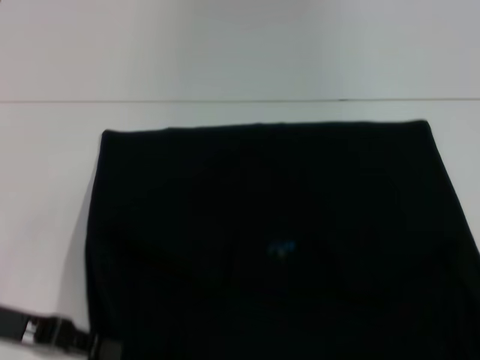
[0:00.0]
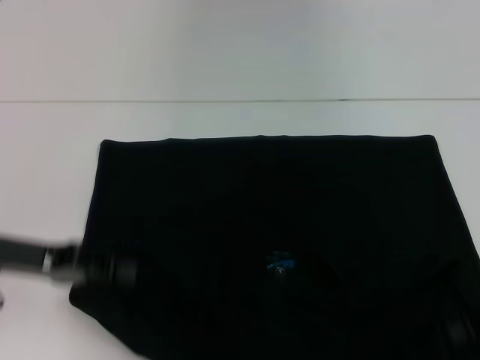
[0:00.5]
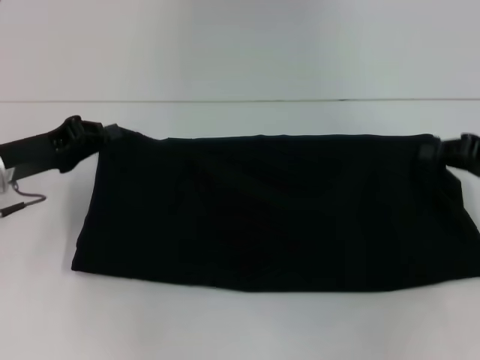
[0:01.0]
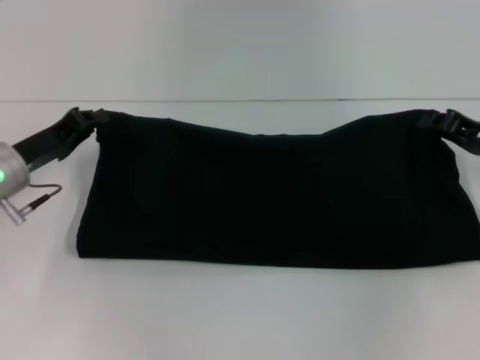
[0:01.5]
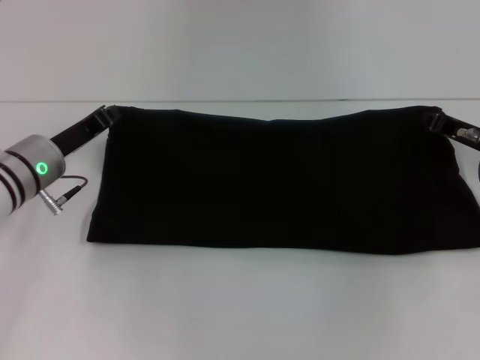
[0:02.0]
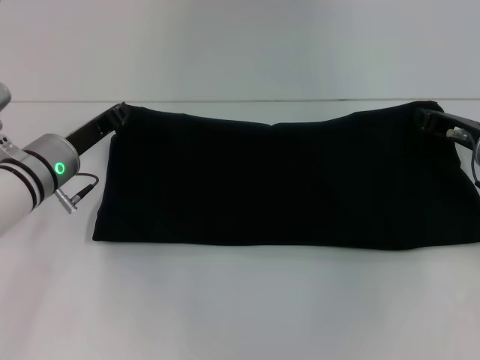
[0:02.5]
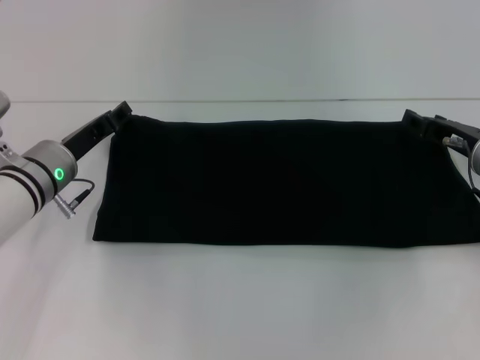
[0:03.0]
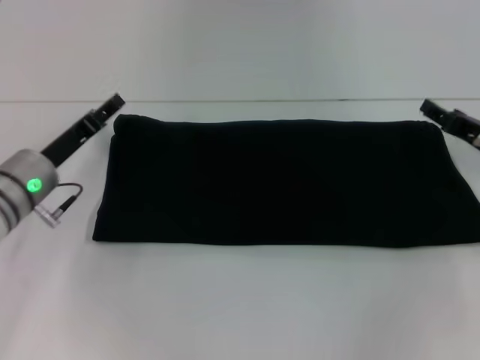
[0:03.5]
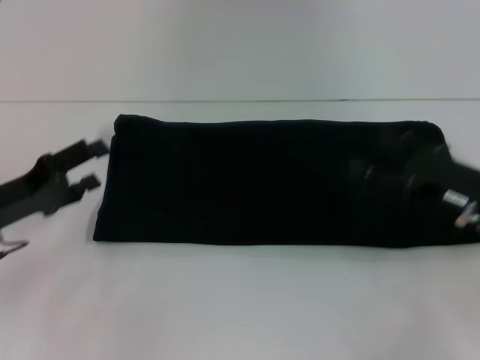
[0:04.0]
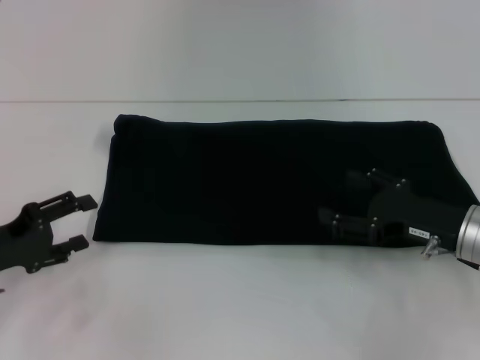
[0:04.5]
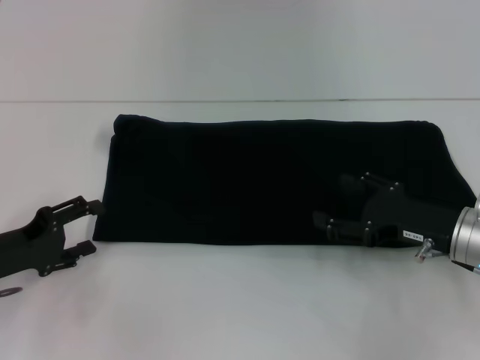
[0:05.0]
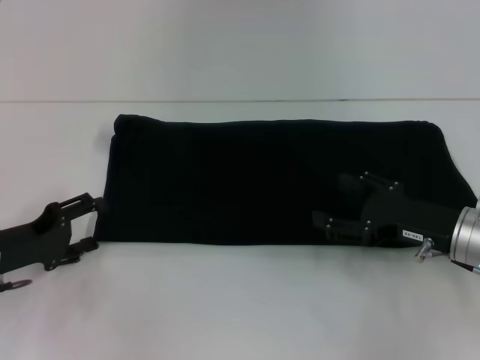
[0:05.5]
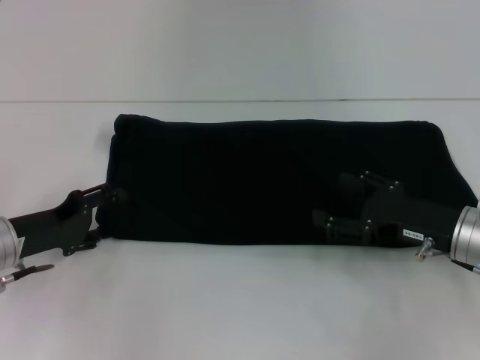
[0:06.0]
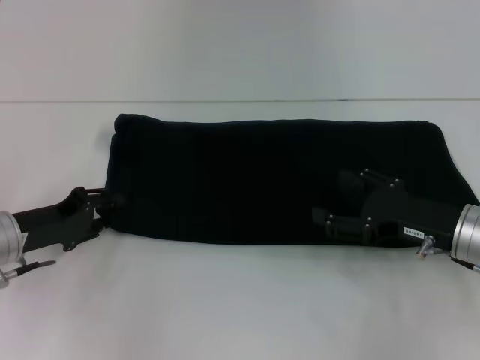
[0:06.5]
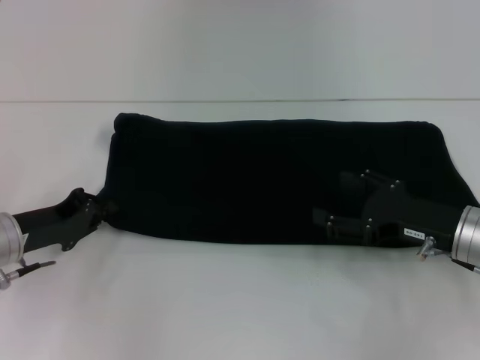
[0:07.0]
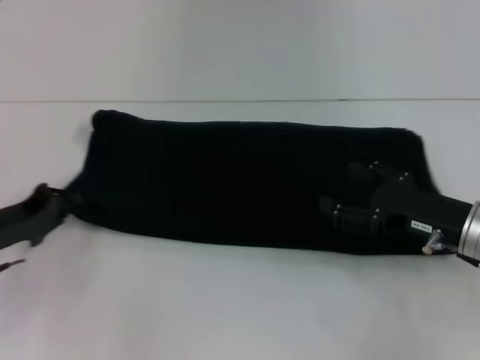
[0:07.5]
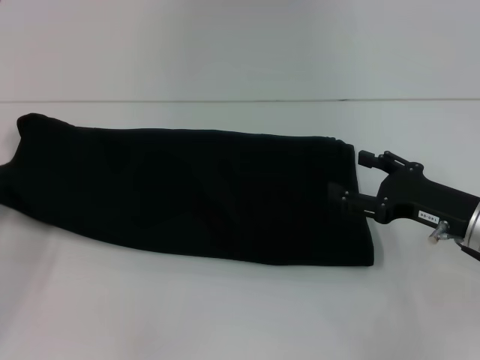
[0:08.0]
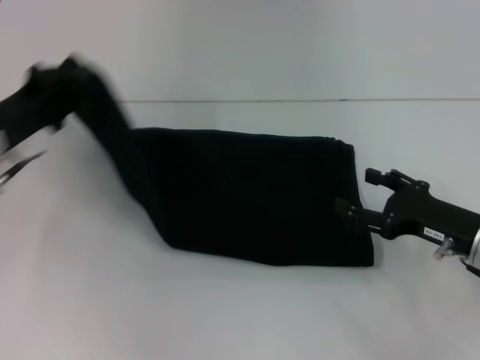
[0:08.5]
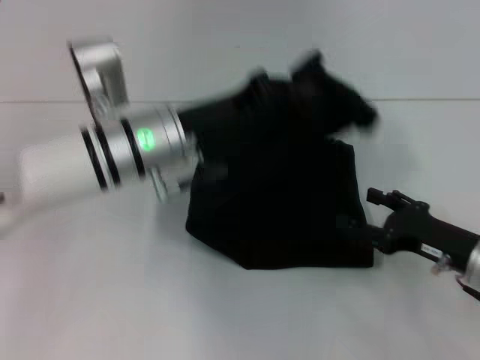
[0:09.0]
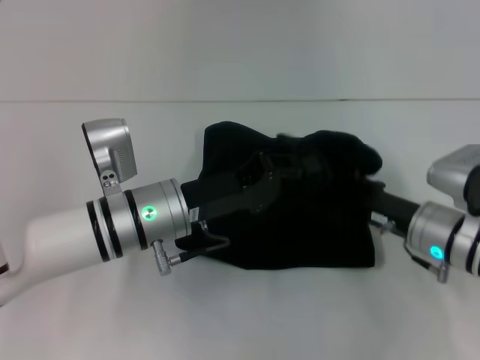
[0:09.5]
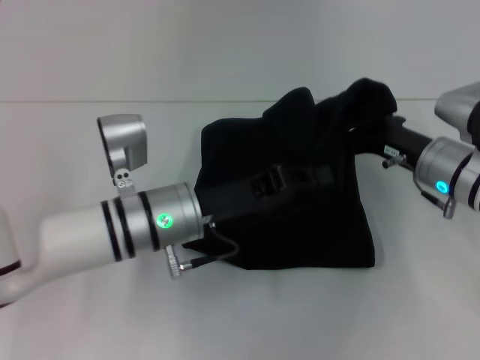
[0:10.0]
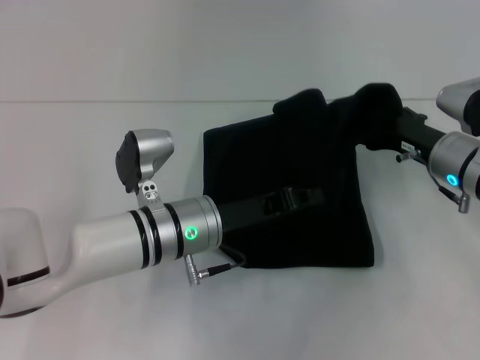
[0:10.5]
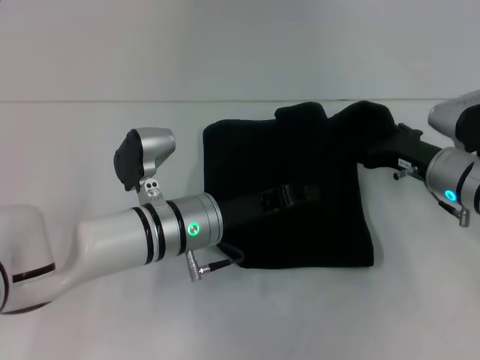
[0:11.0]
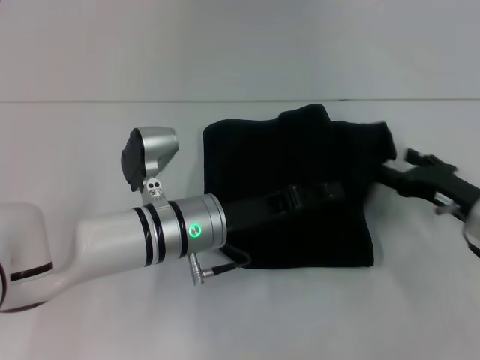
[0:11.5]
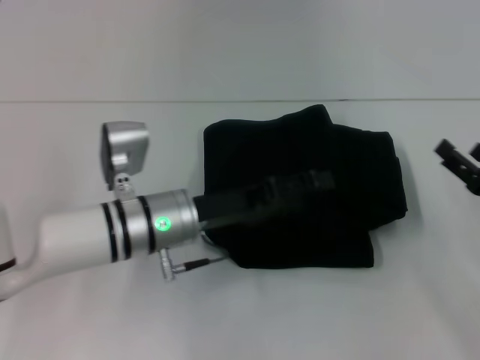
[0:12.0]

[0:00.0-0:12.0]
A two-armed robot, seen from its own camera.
Step, 0:00.5 to 0:03.5: Fold the clothes with your right hand.
0:00.0 to 0:02.0: The right gripper goes approximately 15 cm forward and to the left. Meanwhile the left gripper is displaced forward and to the right by approximately 15 cm.
0:02.0 to 0:04.0: The left gripper shifts some 10 cm backward and to the left, and opens up. Meanwhile the right gripper goes approximately 10 cm backward, and opens its fingers.
0:06.0 to 0:08.0: The left gripper travels to the left by approximately 10 cm, and closes.
0:08.0 to 0:10.0: The right gripper is displaced forward by some 5 cm. Meanwhile the left gripper is displaced to the right by roughly 25 cm.
0:10.0 to 0:12.0: The left gripper opens; the right gripper goes approximately 15 cm to the right and backward.

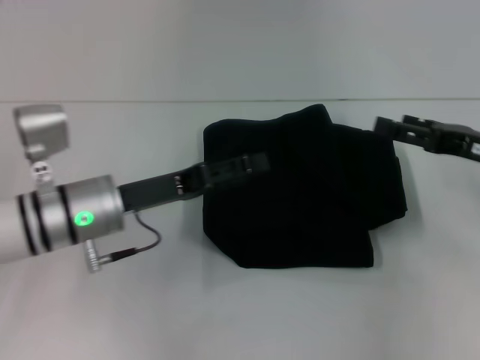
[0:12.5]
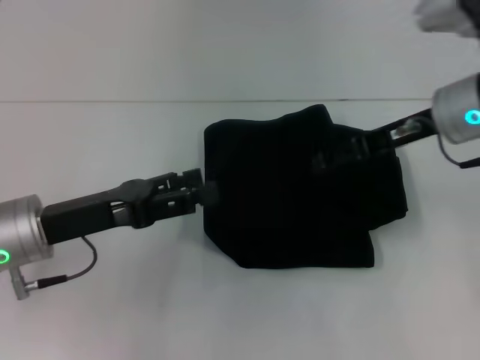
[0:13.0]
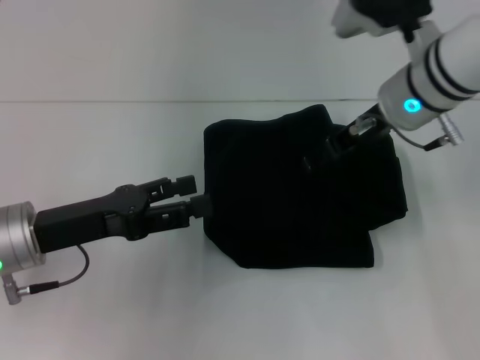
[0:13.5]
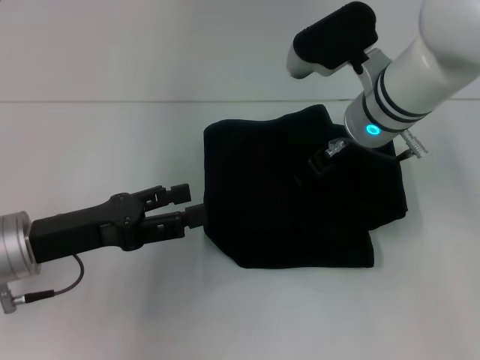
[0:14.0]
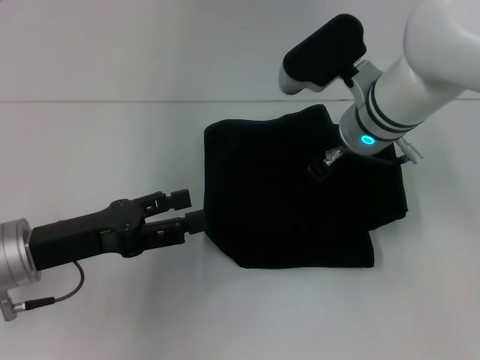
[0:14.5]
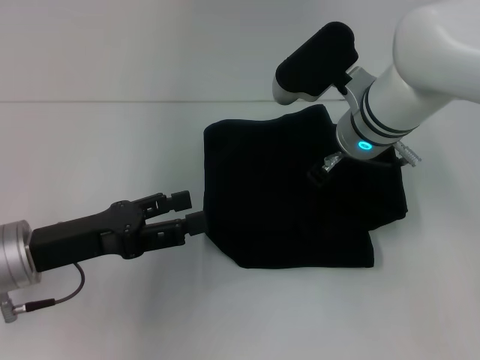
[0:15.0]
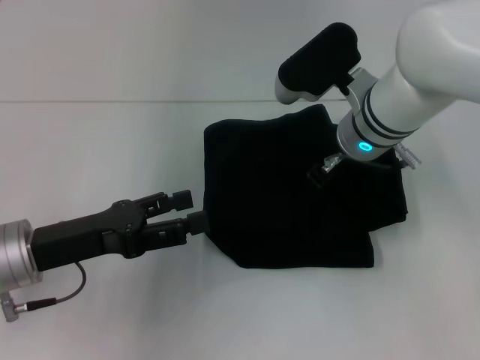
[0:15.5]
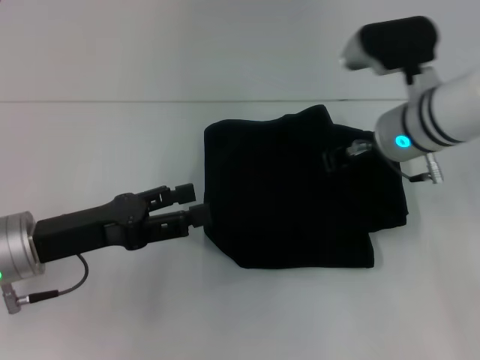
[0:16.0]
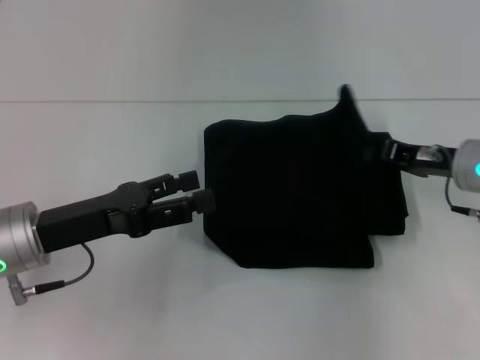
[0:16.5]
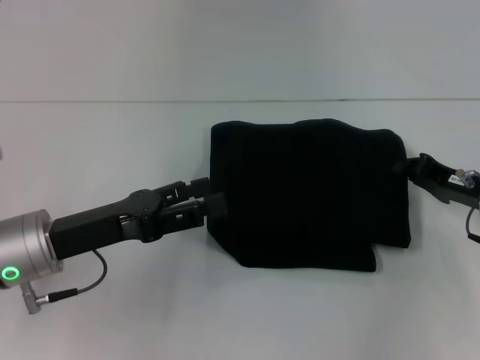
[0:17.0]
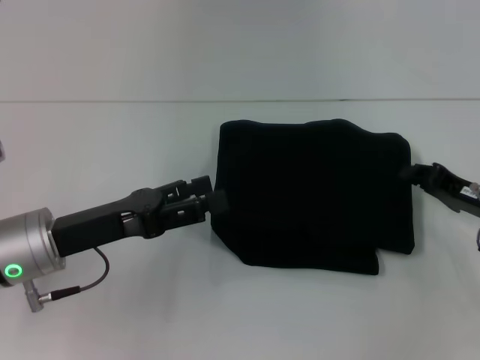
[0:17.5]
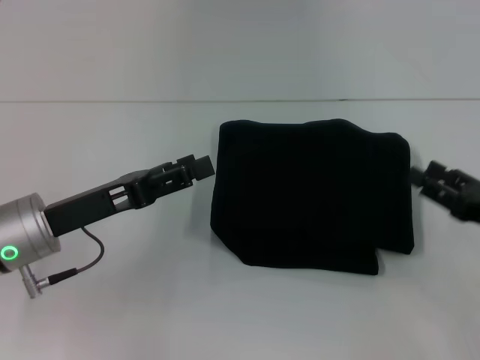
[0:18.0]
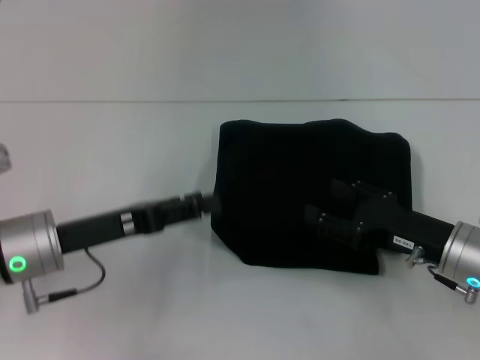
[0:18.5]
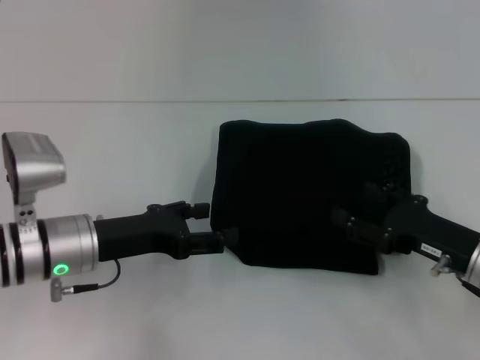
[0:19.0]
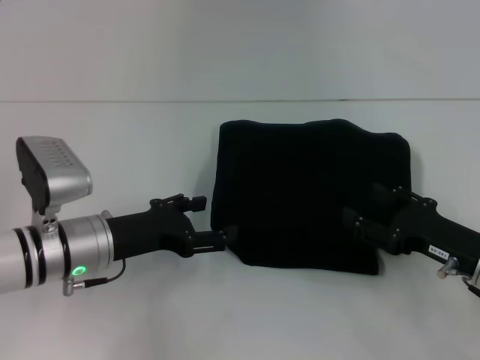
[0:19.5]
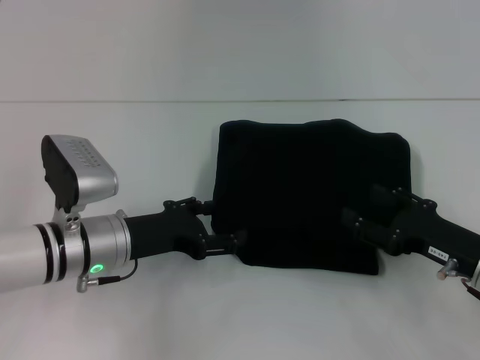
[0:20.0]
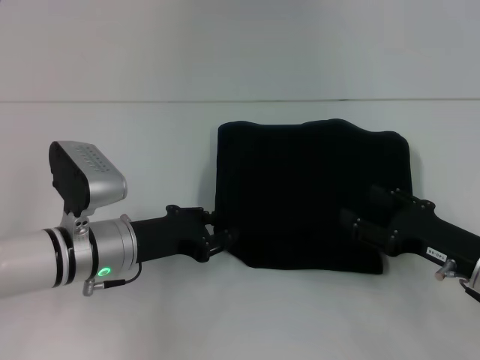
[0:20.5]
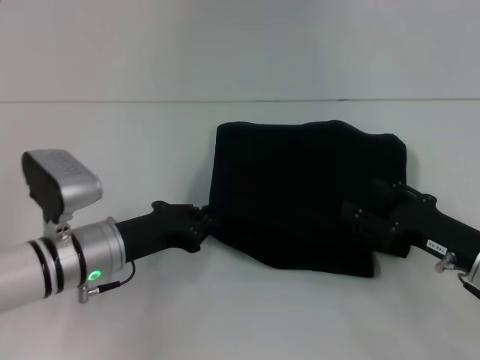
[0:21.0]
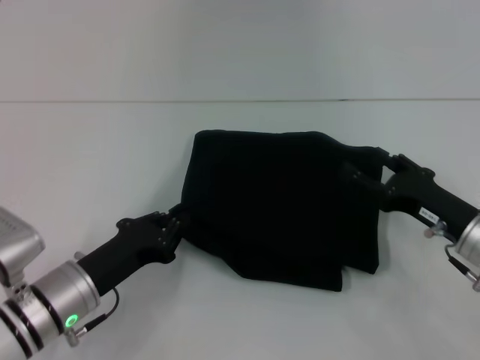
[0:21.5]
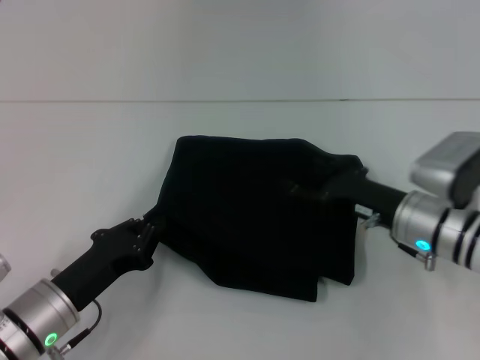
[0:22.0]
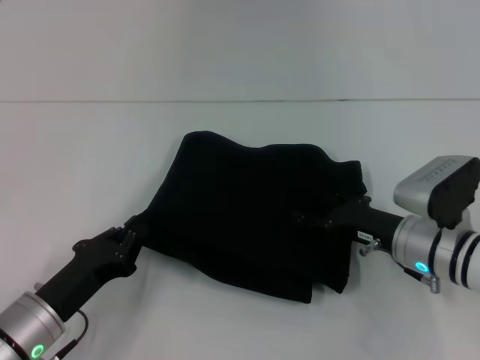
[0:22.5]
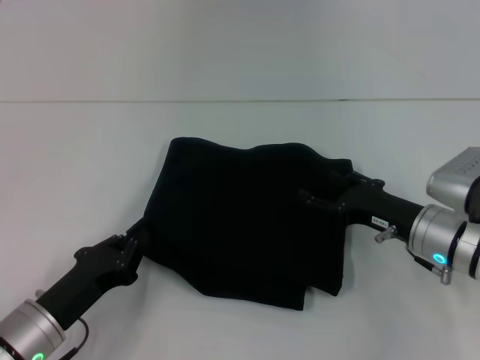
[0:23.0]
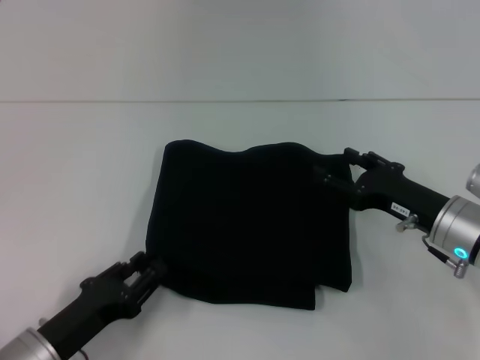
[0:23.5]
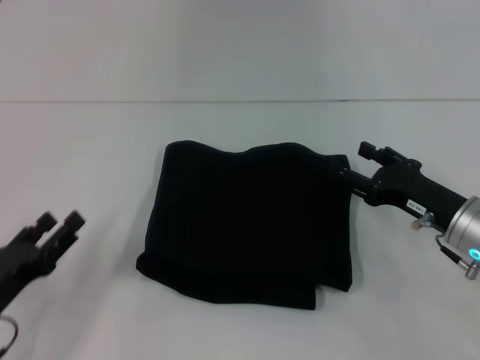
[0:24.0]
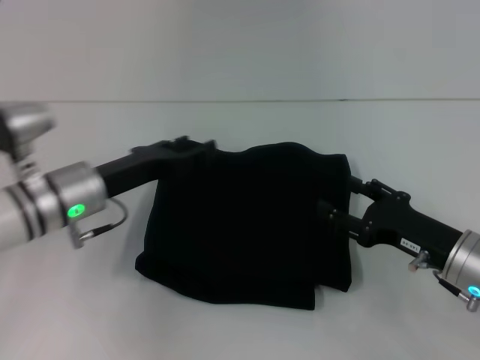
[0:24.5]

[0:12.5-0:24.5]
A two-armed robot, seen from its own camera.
0:12.5 to 0:14.5: The right gripper heads to the left and forward, covering approximately 20 cm. Meanwhile the left gripper travels to the left and backward by approximately 10 cm.
0:14.5 to 0:16.5: The right gripper moves to the right, about 15 cm, and closes its fingers.
0:16.5 to 0:18.5: The right gripper is displaced backward and downward by some 10 cm, and opens up.
0:18.5 to 0:20.5: The left gripper is displaced to the right by approximately 5 cm.
0:20.5 to 0:22.5: The right gripper heads to the left, covering approximately 5 cm. Meanwhile the left gripper shifts some 10 cm backward and to the left, and closes.
0:22.5 to 0:24.5: The right gripper shifts by roughly 5 cm; the left gripper heads forward and upward, covering about 15 cm, and opens.

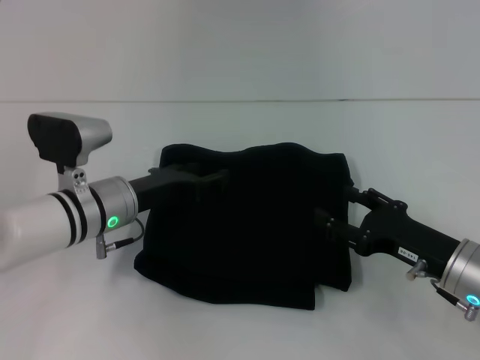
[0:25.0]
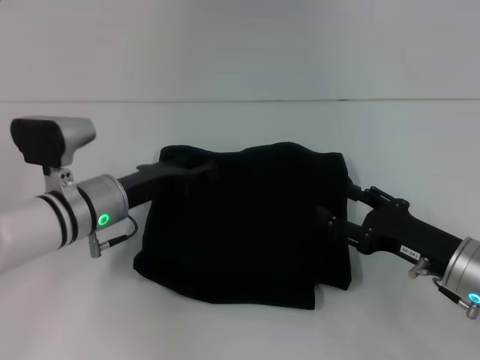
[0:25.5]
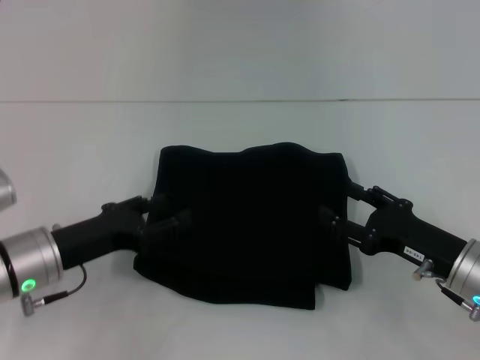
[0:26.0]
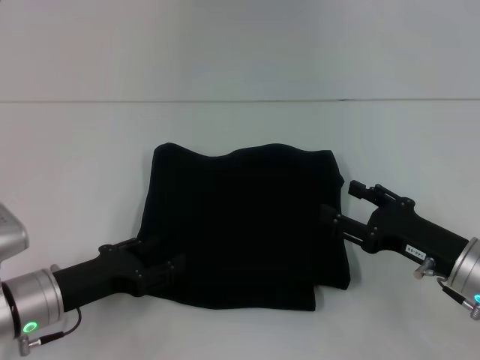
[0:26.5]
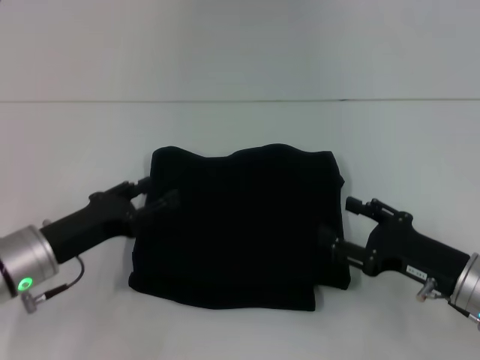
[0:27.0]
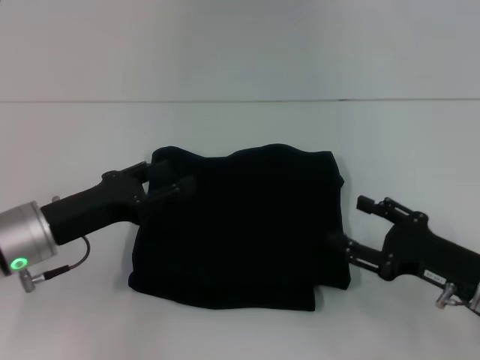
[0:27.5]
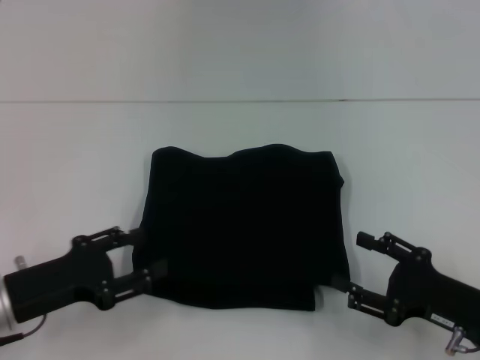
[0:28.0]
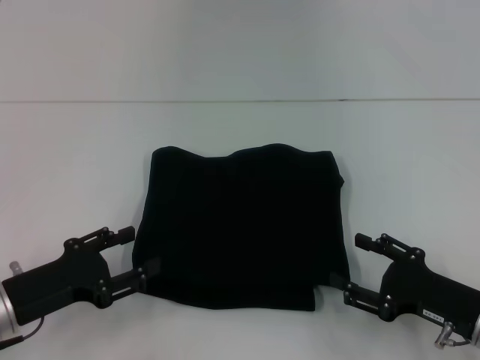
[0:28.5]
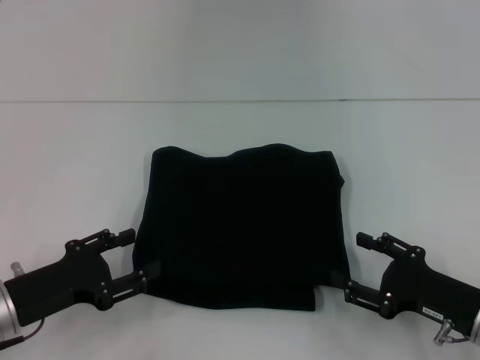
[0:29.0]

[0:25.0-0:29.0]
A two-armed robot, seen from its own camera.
0:25.0 to 0:27.0: The left gripper moves backward and to the left, approximately 10 cm.
0:27.0 to 0:29.0: The left gripper moves about 5 cm.
